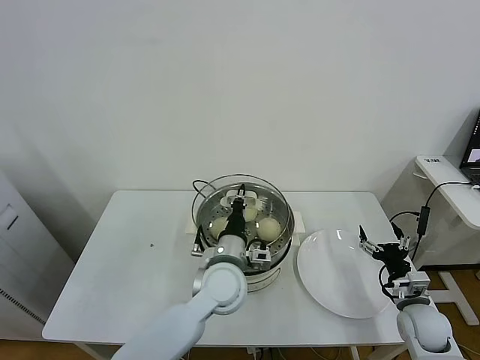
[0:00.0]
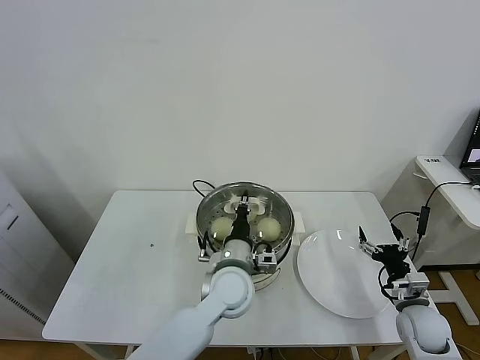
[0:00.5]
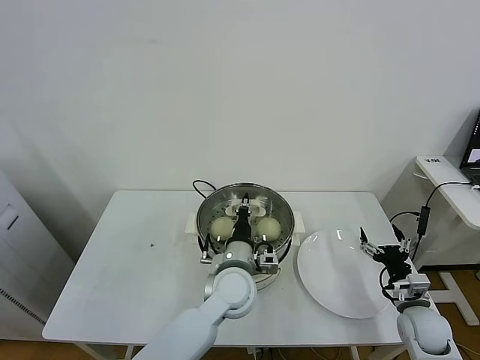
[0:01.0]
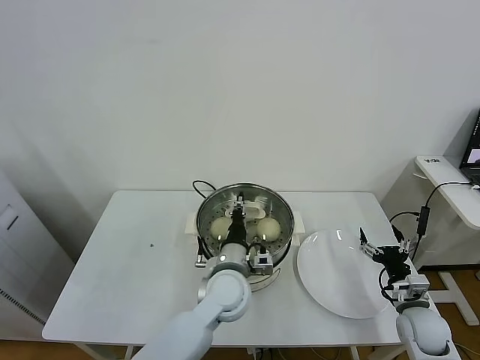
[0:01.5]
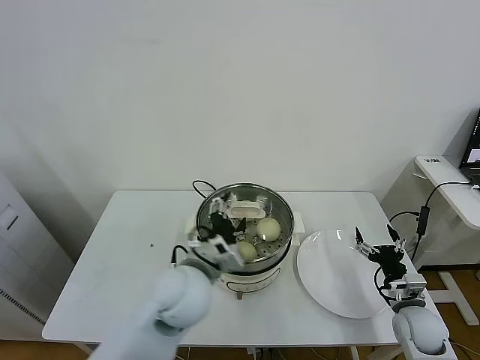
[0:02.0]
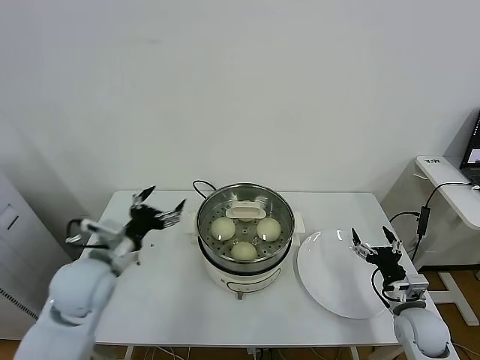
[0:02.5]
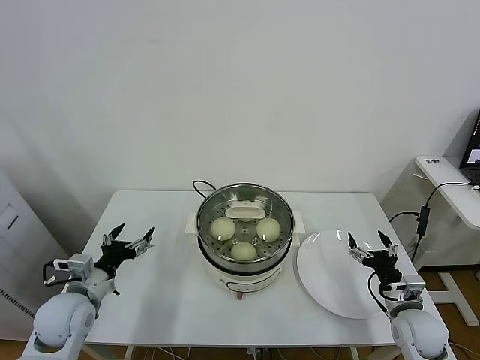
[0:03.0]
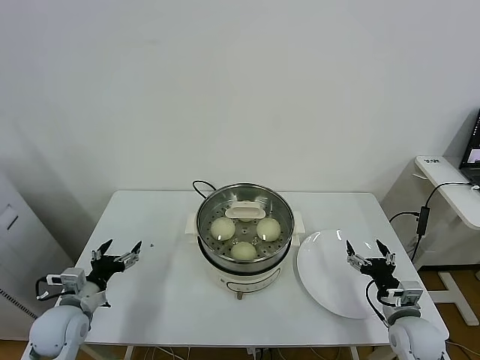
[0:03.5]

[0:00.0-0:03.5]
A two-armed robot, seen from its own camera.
Task of the whole recording: take steamed baozi put them in steamer.
Step, 0:00.0 to 0:02.0: Place the pot lid on the steamer with left gripper.
0:00.0 to 0:02.0: The left gripper changes place by approximately 5 cm, and opens its fingers.
0:02.0 to 0:03.5: The left gripper moves to the left and downward, about 30 cm.

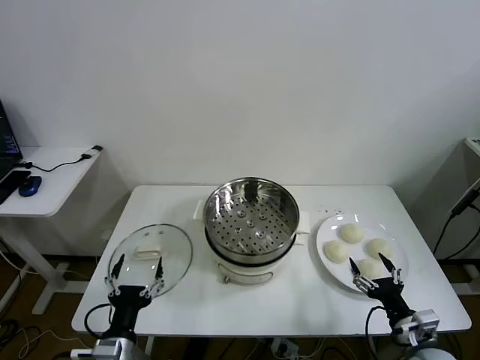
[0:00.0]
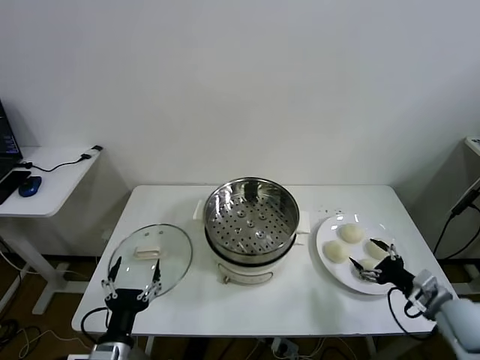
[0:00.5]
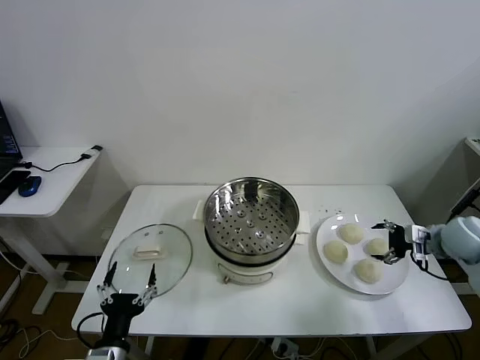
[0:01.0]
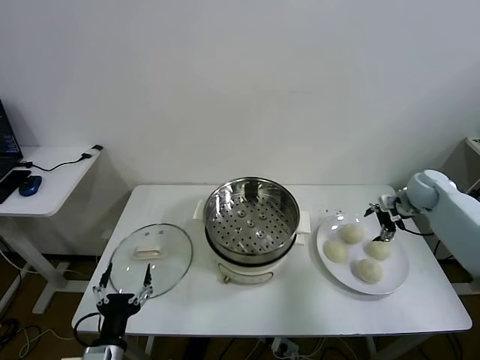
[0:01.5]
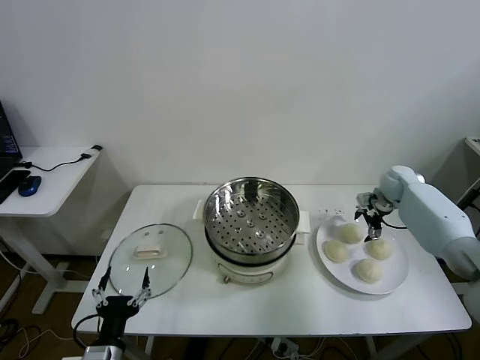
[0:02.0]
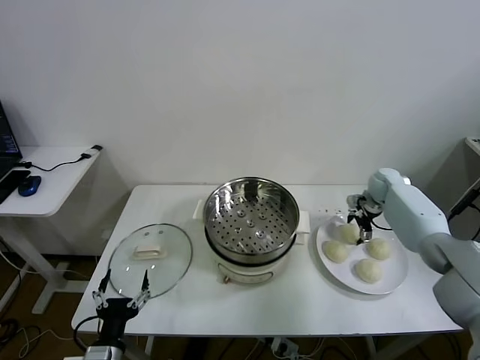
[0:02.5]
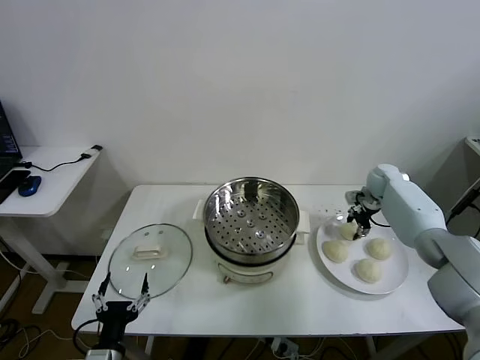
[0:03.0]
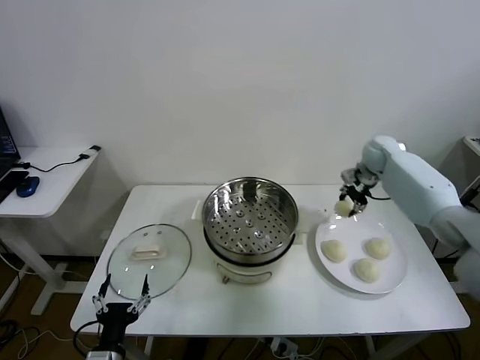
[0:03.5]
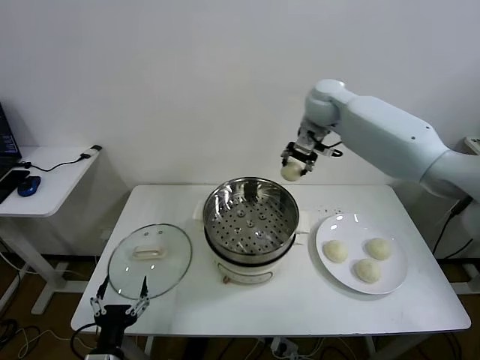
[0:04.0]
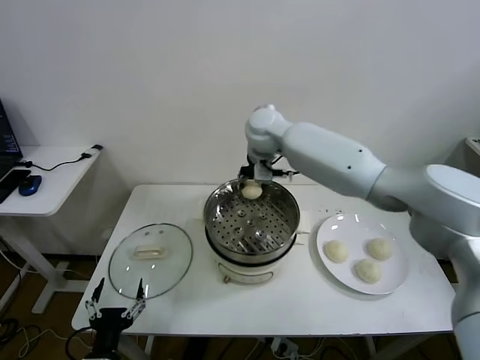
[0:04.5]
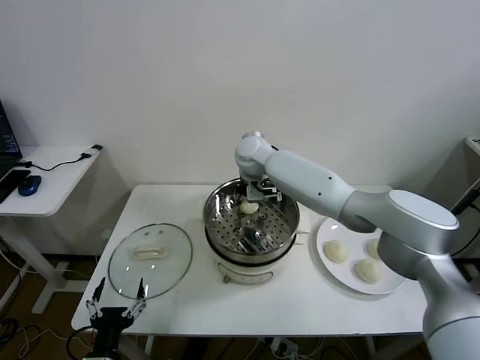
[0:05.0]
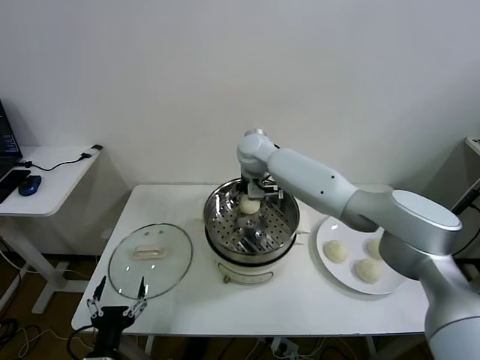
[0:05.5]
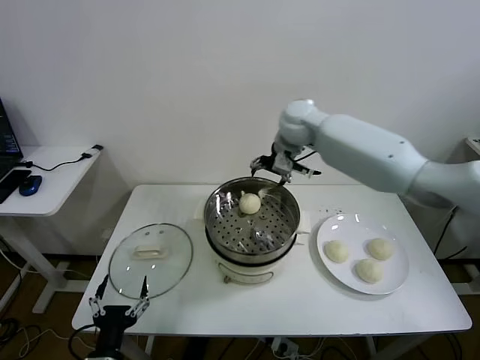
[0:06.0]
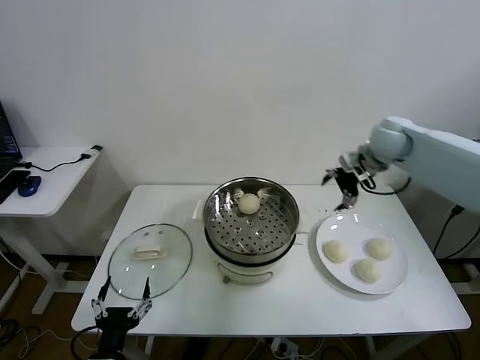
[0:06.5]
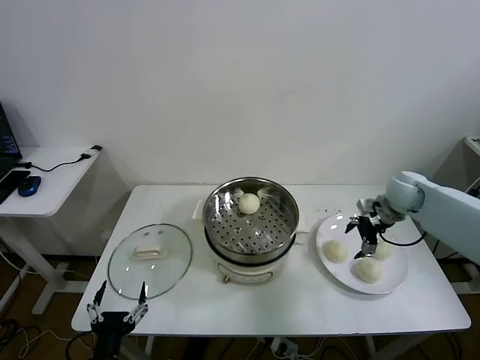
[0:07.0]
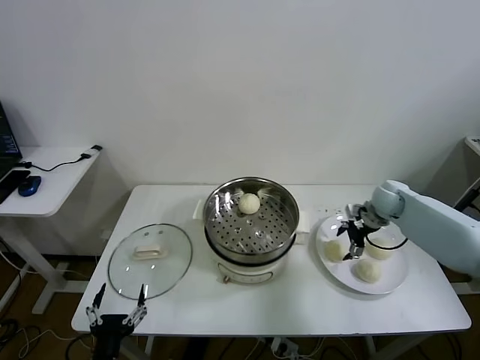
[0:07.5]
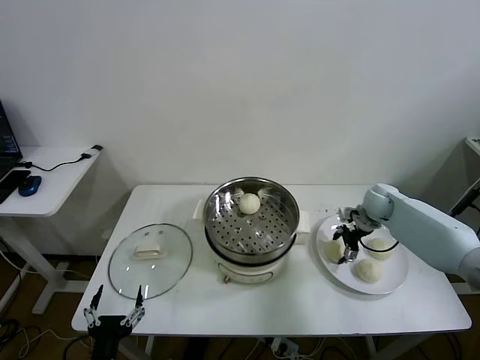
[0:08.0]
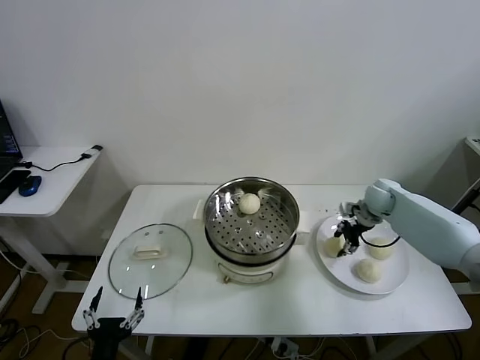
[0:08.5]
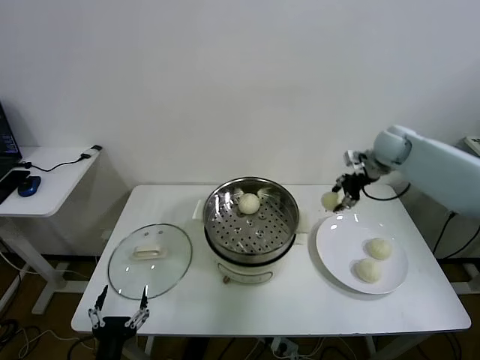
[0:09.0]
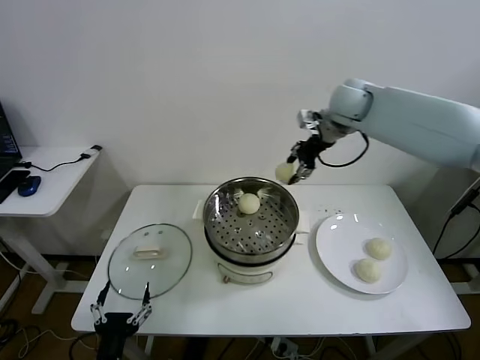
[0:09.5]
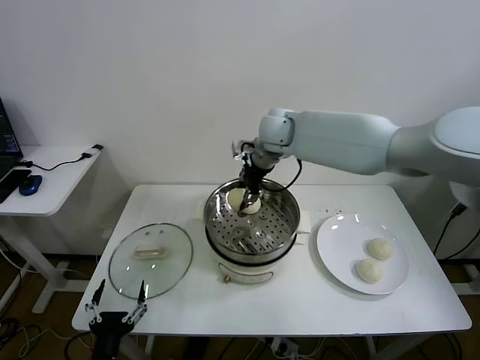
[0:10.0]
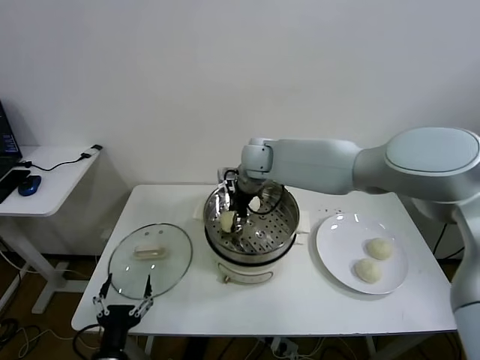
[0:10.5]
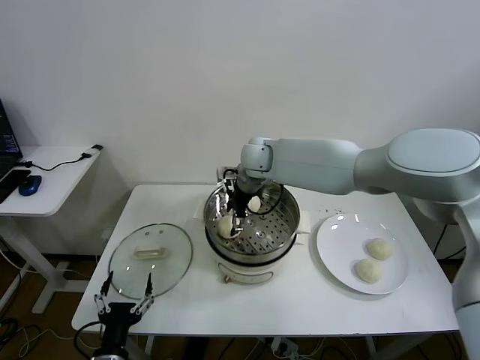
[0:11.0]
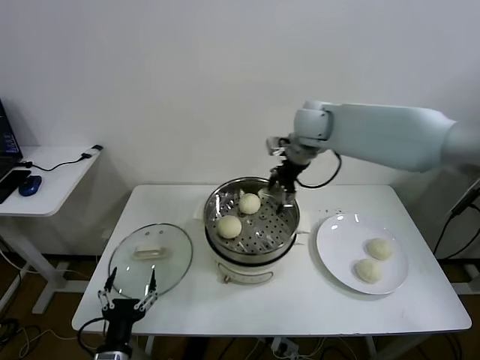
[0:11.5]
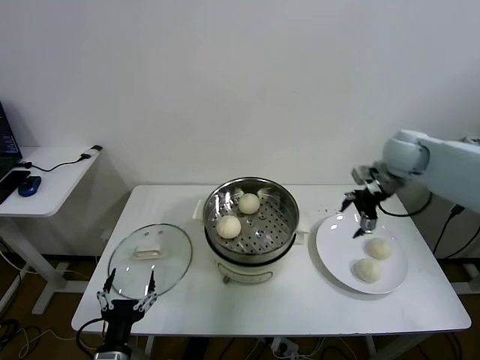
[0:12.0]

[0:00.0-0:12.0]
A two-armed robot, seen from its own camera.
Task of the whole recording: take steamed baozi put them in steamer.
Step, 0:00.0 to 0:02.5: Grasp the baozi in the plate with right gripper.
Step, 0:03.0 to 0:05.5: Place the baozi on the steamer with right gripper.
Step, 0:06.0 to 0:08.0: Grasp the baozi in the plate with right gripper.
Step, 0:08.5 to 0:11.0: Place the baozi on the steamer with right gripper.
0:02.0 to 0:04.0: The right gripper shifts roughly 40 cm to the left and upward, and closes up.
0:04.0 to 0:06.0: The right gripper travels to the left and back again, some 10 cm each way, and opens.
0:06.0 to 0:08.0: The right gripper travels downward and to the right by some 30 cm, and closes.
0:08.0 to 0:10.0: The right gripper is displaced to the left and upward by about 35 cm, and closes up.
0:10.0 to 0:12.0: The right gripper is displaced to the right by some 30 cm, and opens up.

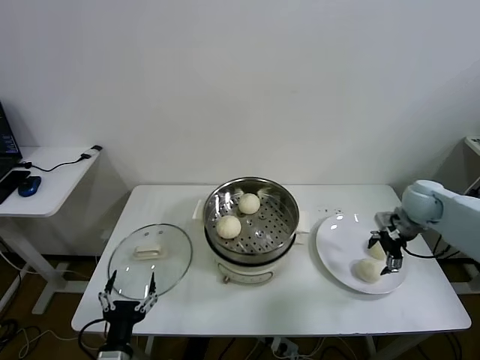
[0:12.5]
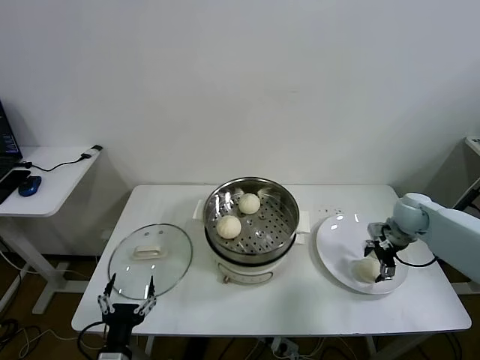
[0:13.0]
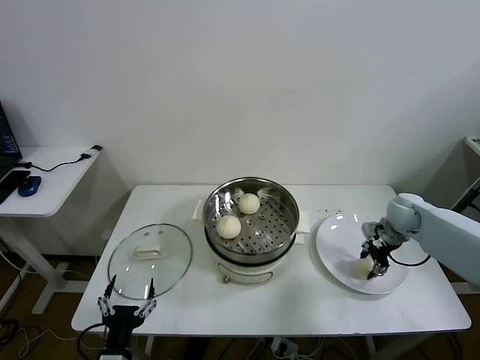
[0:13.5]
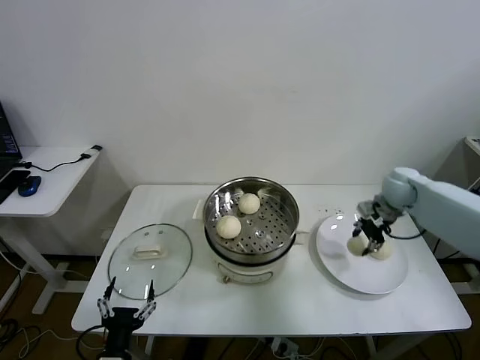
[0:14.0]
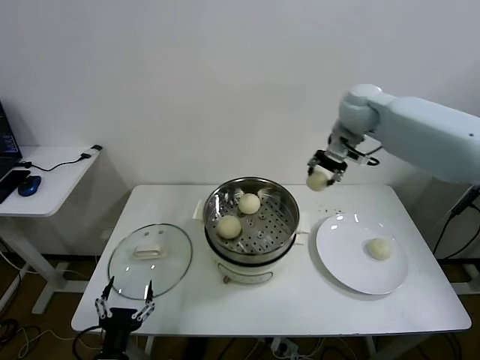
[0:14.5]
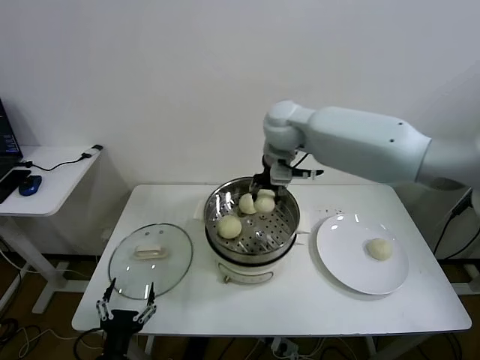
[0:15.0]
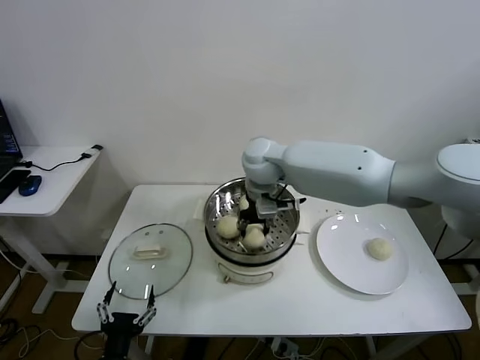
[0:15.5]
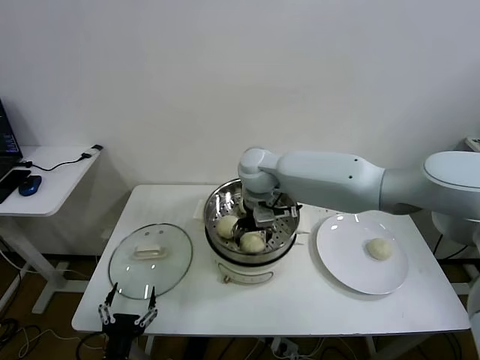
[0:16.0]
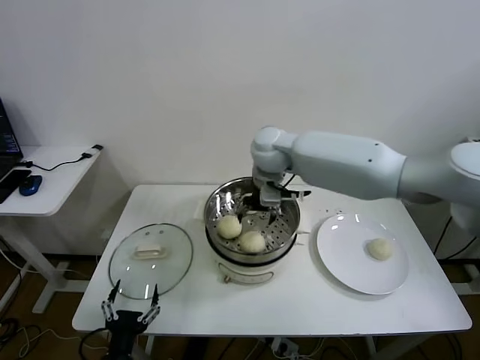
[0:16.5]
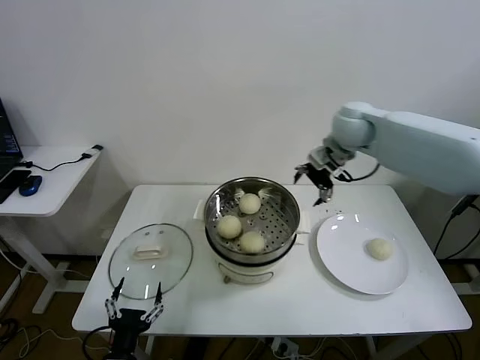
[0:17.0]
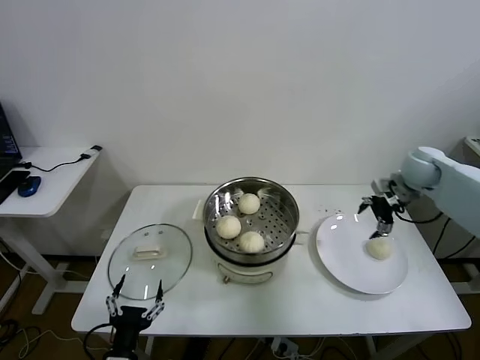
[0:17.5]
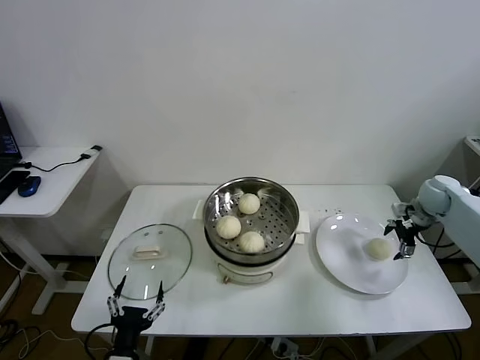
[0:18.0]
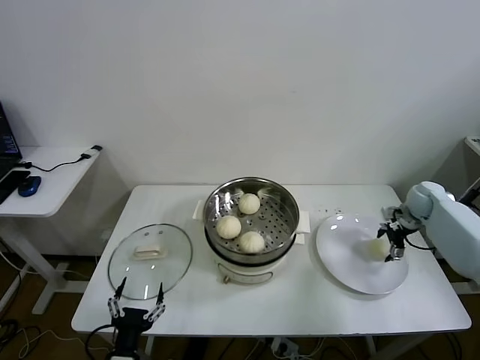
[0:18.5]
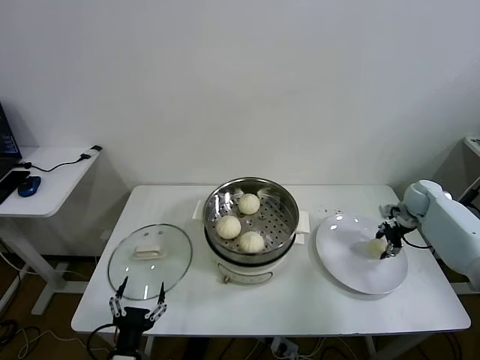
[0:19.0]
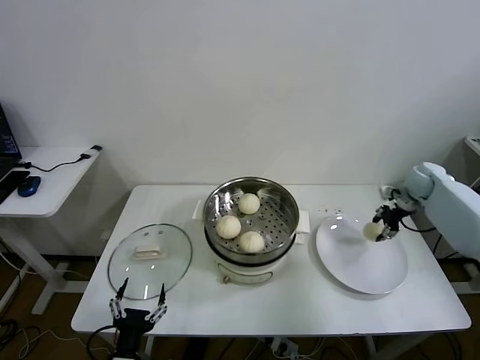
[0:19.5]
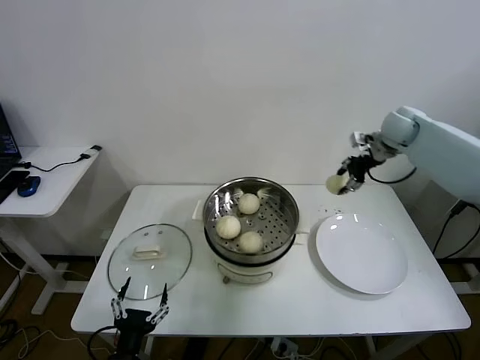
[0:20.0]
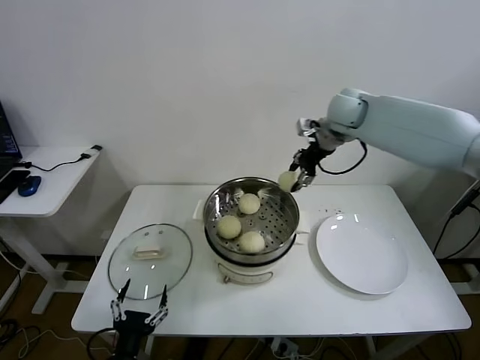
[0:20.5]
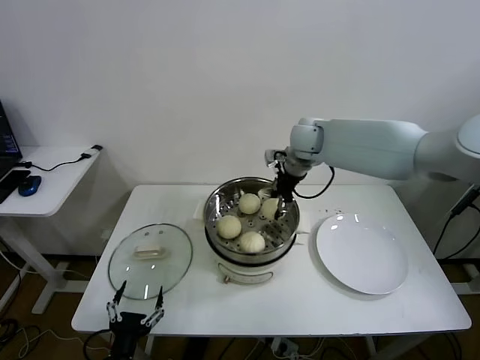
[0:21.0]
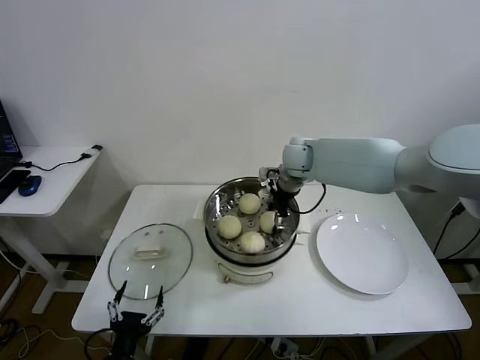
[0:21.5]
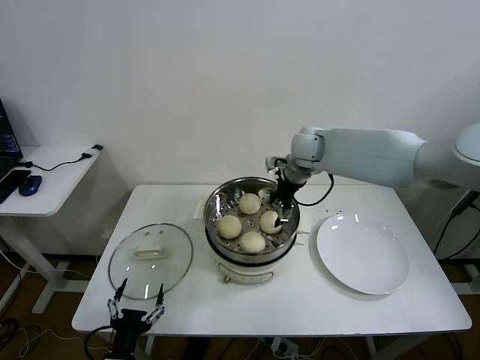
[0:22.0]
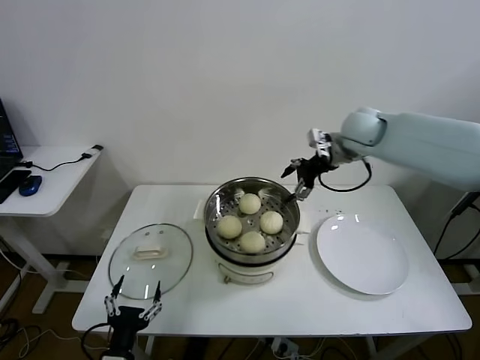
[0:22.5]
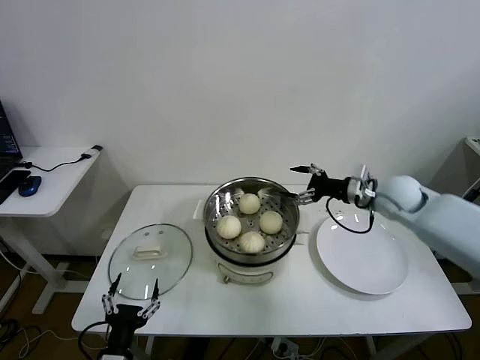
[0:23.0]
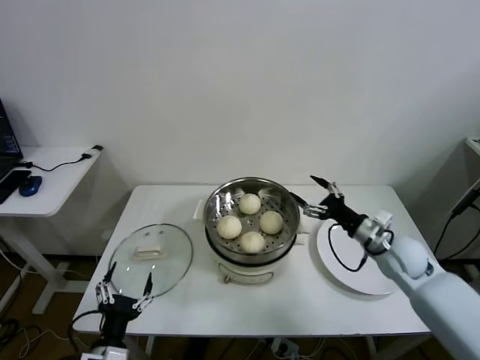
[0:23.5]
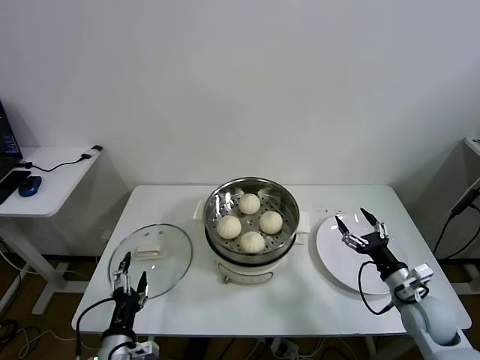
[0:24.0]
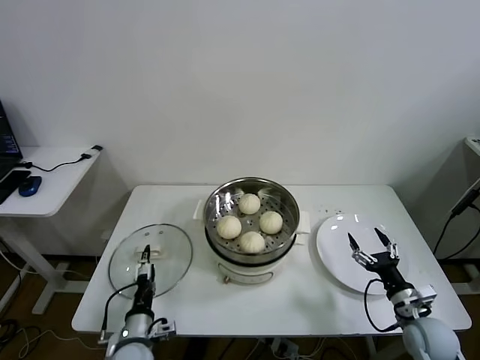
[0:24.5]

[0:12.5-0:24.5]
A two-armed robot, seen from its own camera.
Task of the whole recording: take steamed baozi put them in steamer.
Step, 0:13.5 to 0:16.0: Place the baozi on the steamer with right gripper.
Step, 0:16.5 to 0:19.0: Grasp the baozi in the plate with right gripper.
Step, 0:19.5 to 0:22.0: Place the baozi on the steamer with right gripper.
0:12.5 to 0:14.5: The right gripper heads upward, to the left and forward, covering about 30 cm, and closes its fingers.
0:14.5 to 0:16.5: The right gripper travels to the left and downward by roughly 20 cm, and opens.
0:16.5 to 0:18.5: The right gripper moves to the right and downward, roughly 50 cm.
0:18.5 to 0:20.5: The right gripper travels to the left and upward by some 35 cm, and closes its fingers.
0:20.5 to 0:22.5: The right gripper reaches approximately 10 cm to the left, then returns, and opens its fingers.
0:22.5 to 0:24.5: The right gripper moves downward, backward and to the right, roughly 50 cm. The left gripper is displaced forward and downward by approximately 10 cm.
